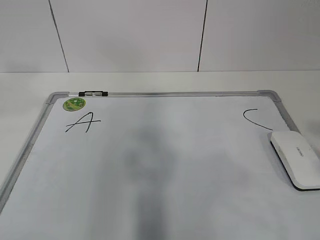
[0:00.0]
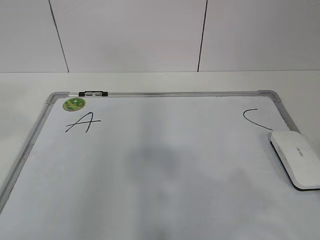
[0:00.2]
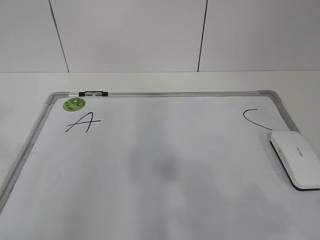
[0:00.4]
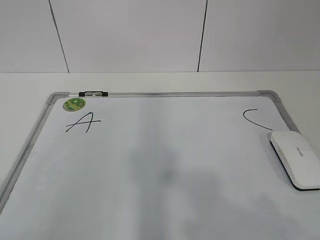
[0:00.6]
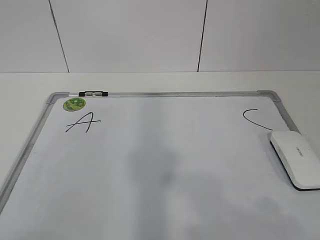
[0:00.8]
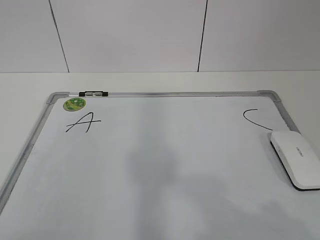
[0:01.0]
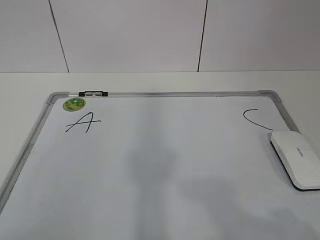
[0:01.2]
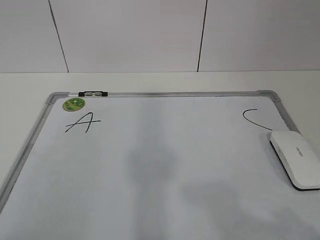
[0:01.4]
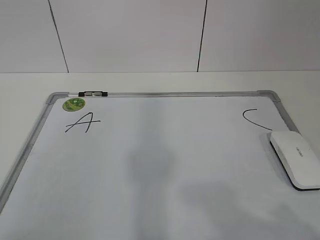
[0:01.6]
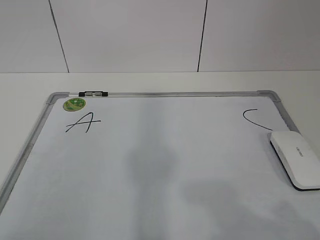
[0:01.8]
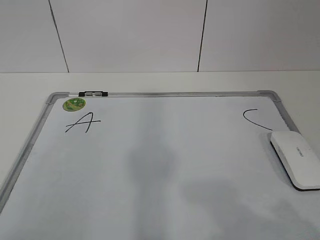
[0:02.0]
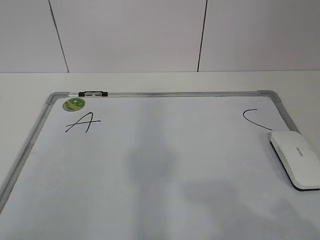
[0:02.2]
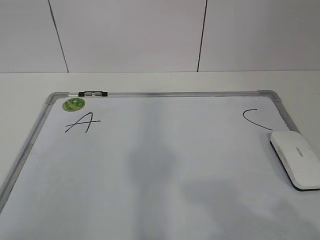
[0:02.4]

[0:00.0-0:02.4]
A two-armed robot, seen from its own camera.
Task of the whole recording: pick up the eraser on the blackboard and erase the letter "B".
0:00.0 to 0:01.2: The right gripper shifts approximately 10 cm downward. Meanwhile the left gripper moves backward and downward, roughly 25 cm.

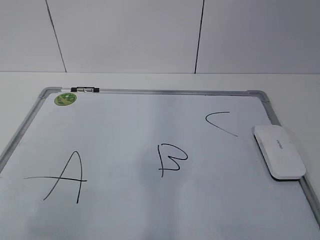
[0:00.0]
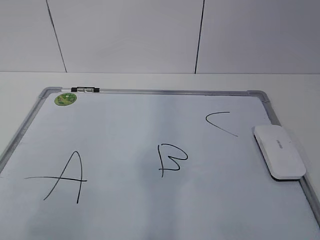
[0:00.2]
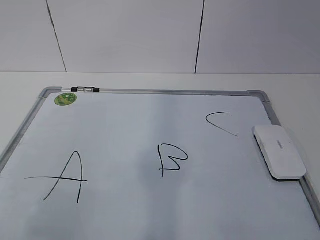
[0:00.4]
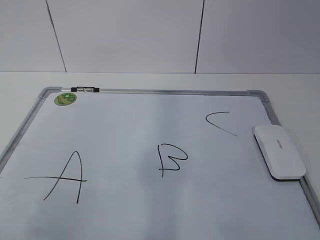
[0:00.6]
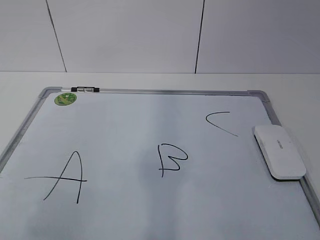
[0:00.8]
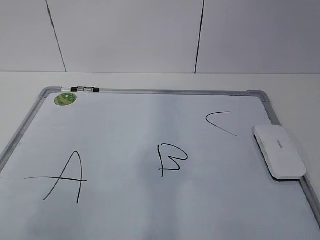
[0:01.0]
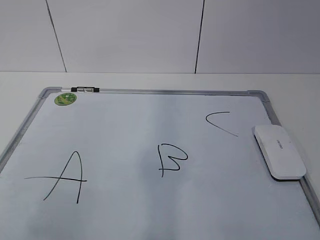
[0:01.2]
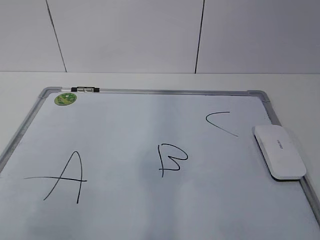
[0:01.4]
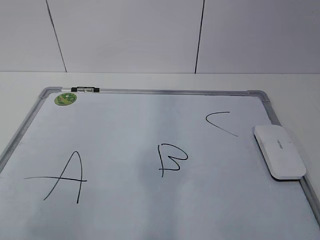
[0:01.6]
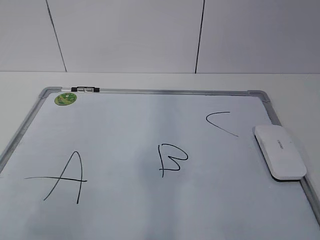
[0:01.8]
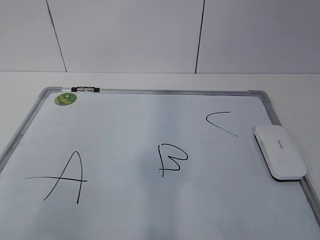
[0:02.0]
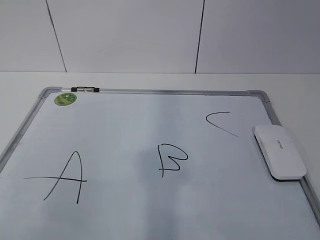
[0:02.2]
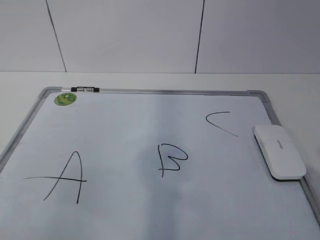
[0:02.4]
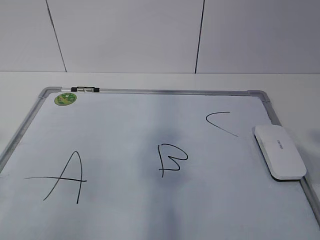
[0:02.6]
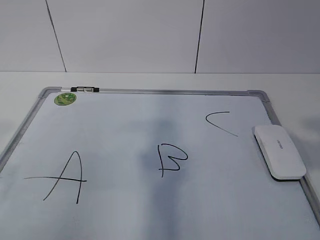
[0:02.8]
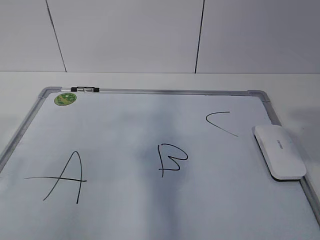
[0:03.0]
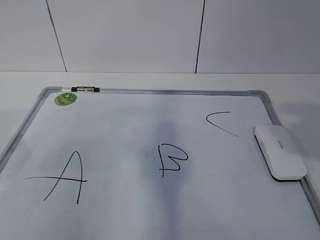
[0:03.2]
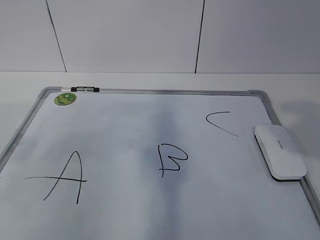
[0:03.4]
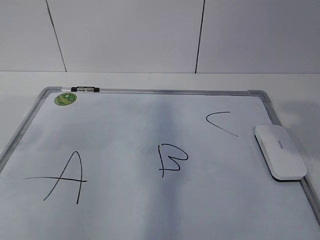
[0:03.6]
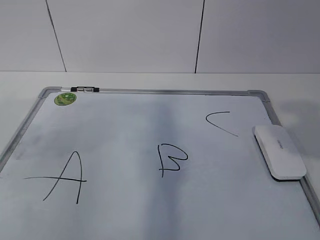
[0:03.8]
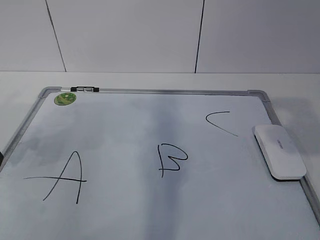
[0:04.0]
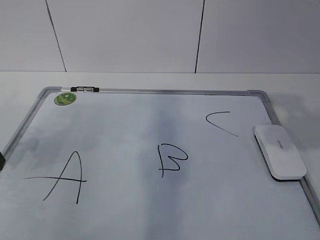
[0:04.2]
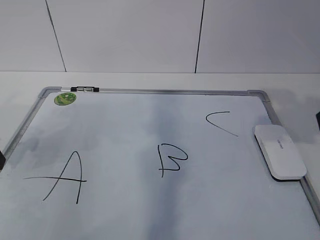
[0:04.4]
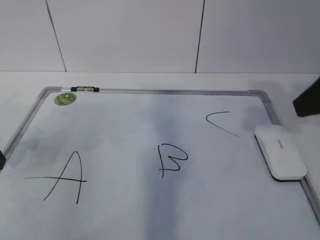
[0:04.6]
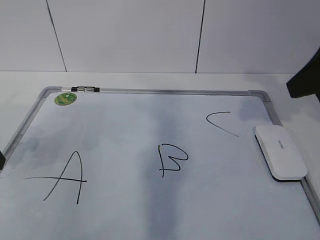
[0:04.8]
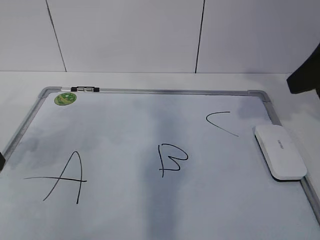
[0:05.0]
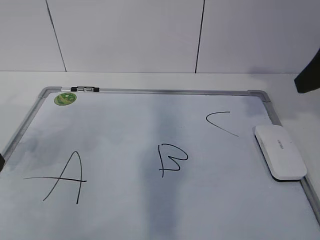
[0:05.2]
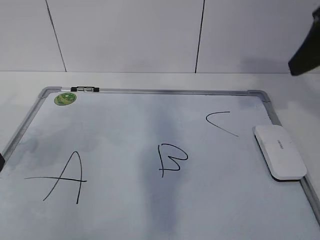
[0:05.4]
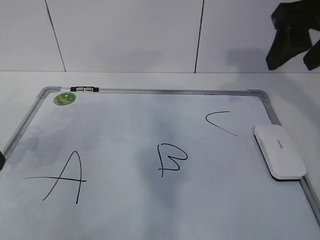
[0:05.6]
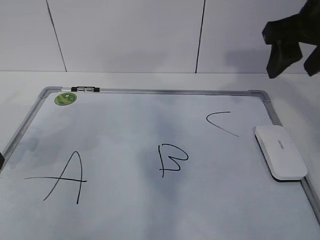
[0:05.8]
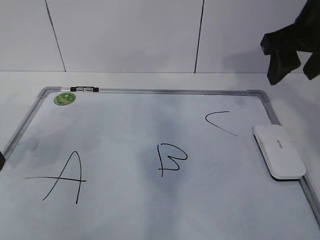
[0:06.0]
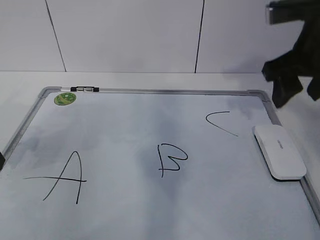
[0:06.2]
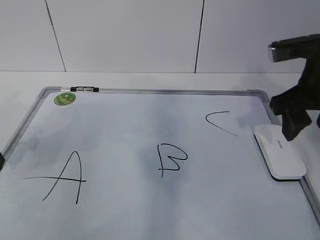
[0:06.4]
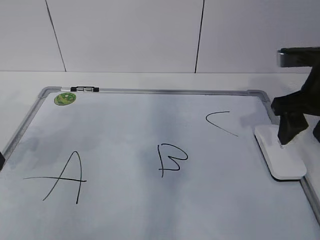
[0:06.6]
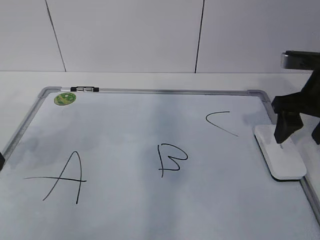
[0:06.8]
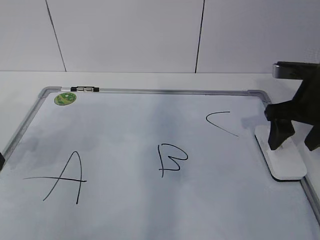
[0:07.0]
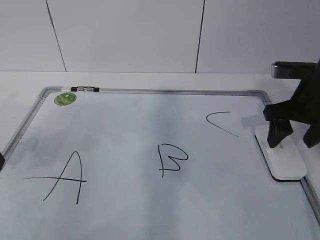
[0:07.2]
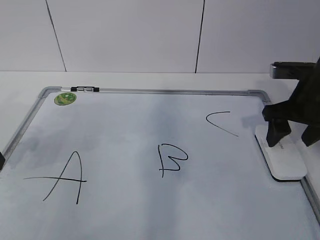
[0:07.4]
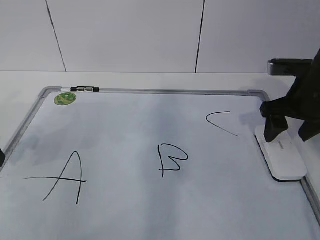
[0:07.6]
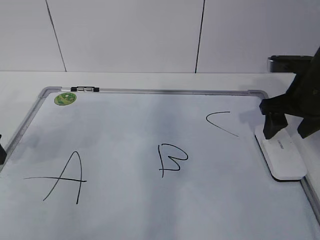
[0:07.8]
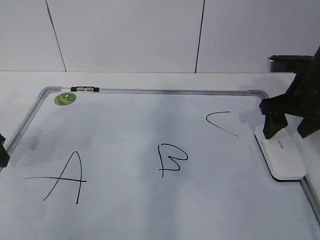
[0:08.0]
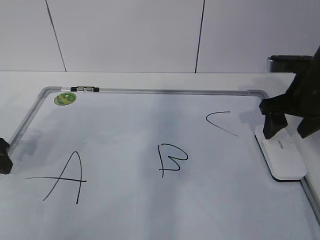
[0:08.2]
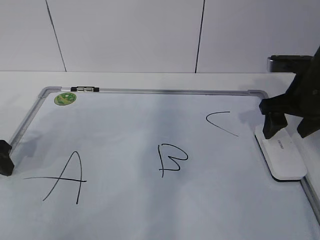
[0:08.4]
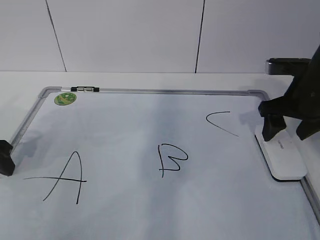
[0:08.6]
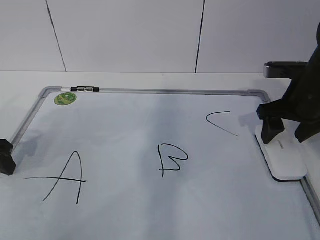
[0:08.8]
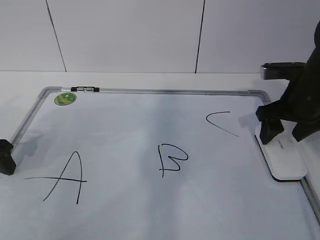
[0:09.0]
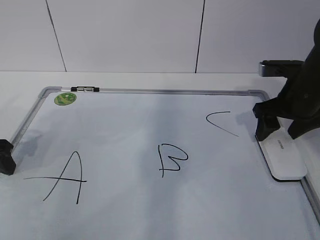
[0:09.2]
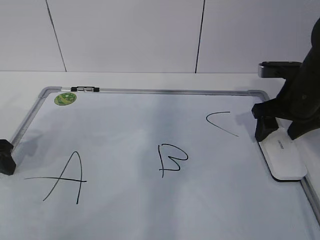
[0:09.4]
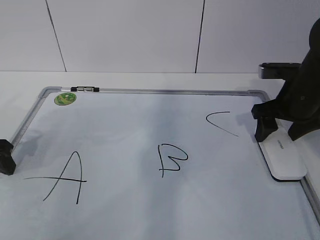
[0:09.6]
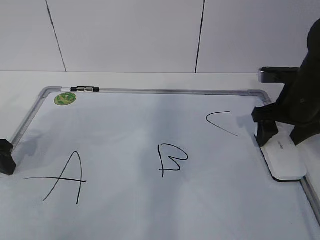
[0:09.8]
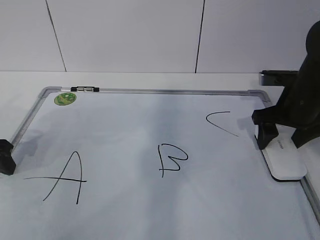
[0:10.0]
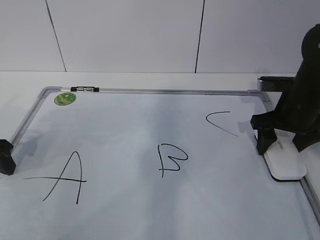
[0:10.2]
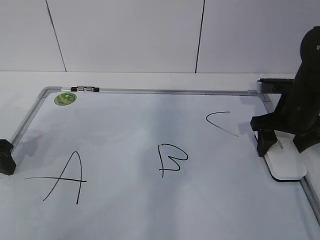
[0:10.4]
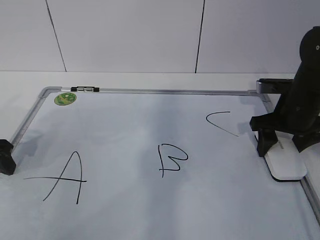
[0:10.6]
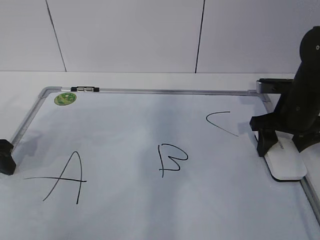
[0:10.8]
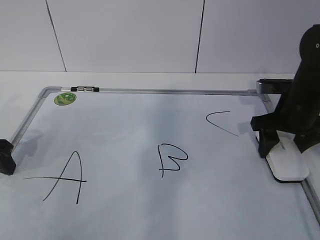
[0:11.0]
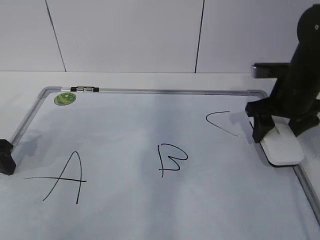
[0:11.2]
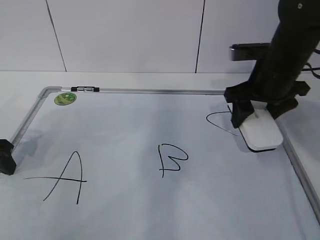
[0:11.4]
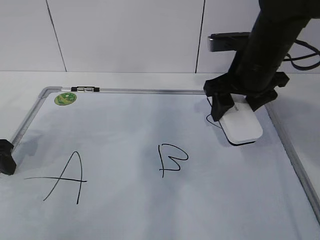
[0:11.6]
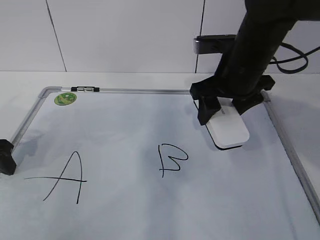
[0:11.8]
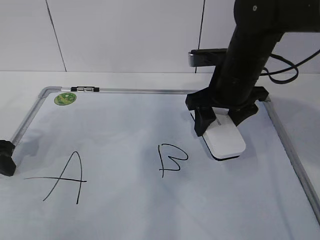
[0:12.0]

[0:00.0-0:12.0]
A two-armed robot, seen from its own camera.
Task of the whole recording: pick up the eraser on the blackboard and erase the letter "B".
Step, 0:00.0 to 0:07.0: Hold the drawing board steady with your left hand.
Step, 0:07.2 to 0:08.6: Grab the eraser with your right hand.
0:01.6 to 0:03.0: The left gripper moves forward, about 10 cm, while the right gripper heads upward and forward, covering roughly 10 cm.
0:03.0 to 0:04.4: The left gripper is displaced forward and downward by about 20 cm.
0:04.4 to 0:06.0: The right gripper goes about 15 cm forward.
0:06.0 to 0:07.6: The right gripper moves downward, approximately 15 cm.
0:07.6 to 0:10.4: The grippers move only a little.
0:10.4 to 0:12.0: The right gripper moves to the left and upward, about 15 cm.

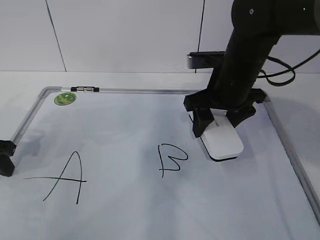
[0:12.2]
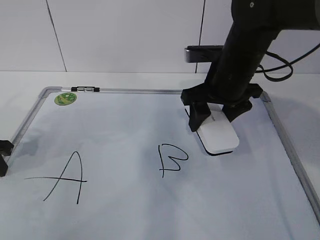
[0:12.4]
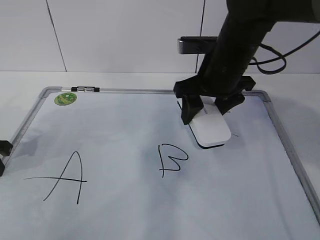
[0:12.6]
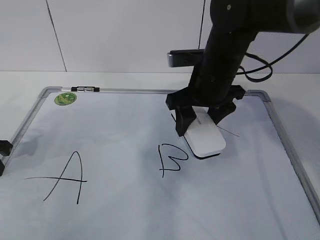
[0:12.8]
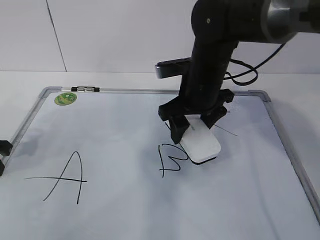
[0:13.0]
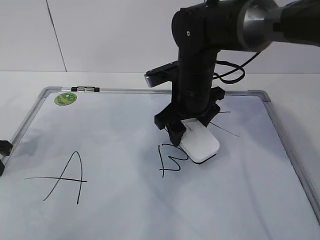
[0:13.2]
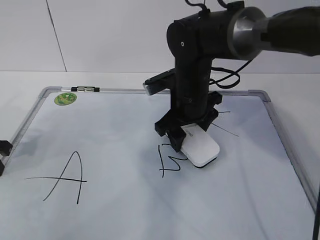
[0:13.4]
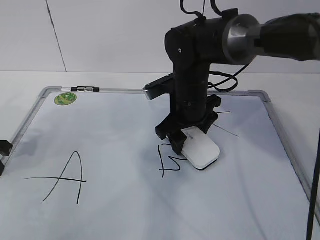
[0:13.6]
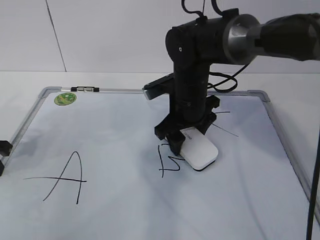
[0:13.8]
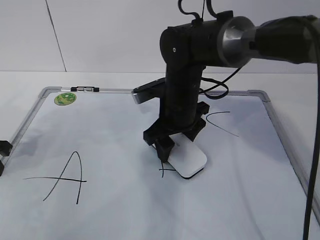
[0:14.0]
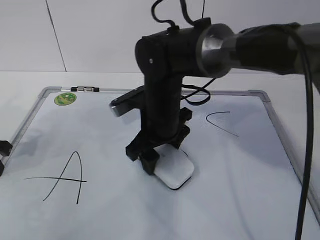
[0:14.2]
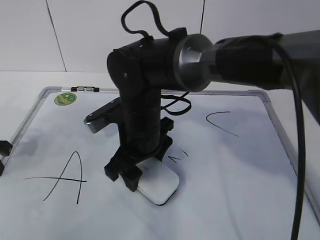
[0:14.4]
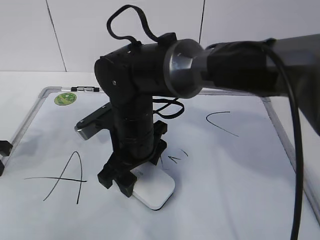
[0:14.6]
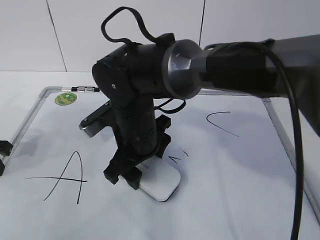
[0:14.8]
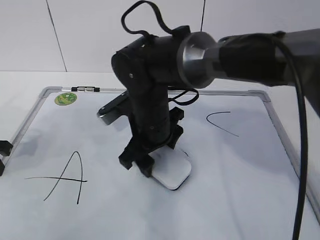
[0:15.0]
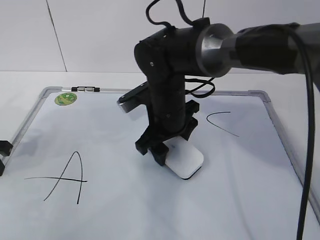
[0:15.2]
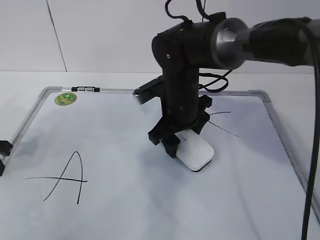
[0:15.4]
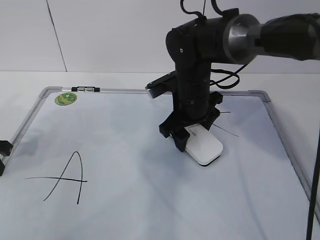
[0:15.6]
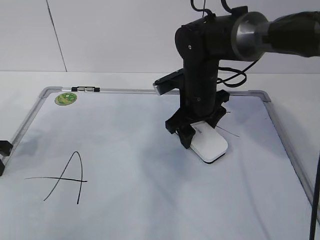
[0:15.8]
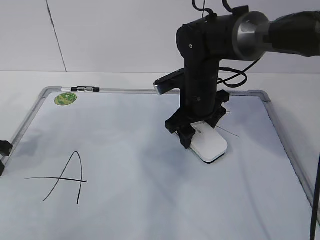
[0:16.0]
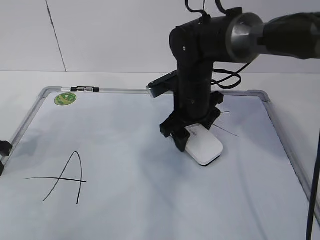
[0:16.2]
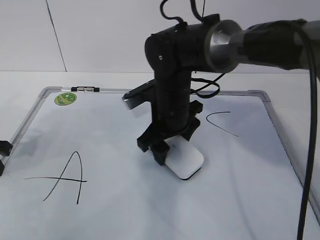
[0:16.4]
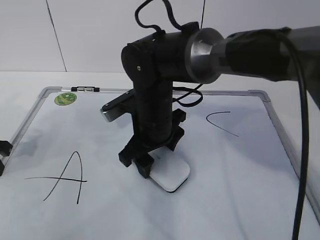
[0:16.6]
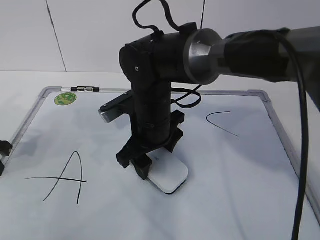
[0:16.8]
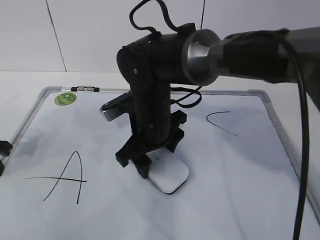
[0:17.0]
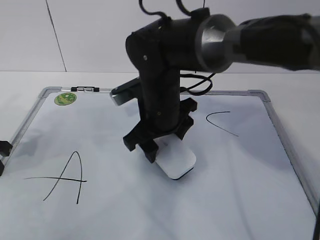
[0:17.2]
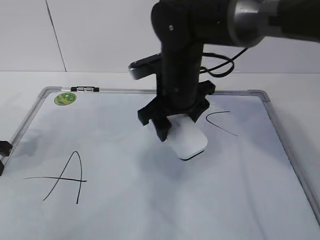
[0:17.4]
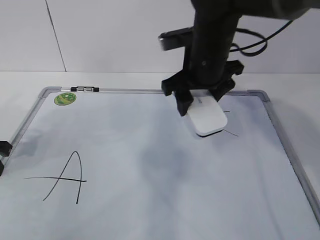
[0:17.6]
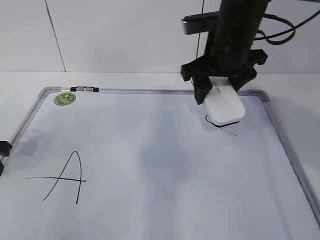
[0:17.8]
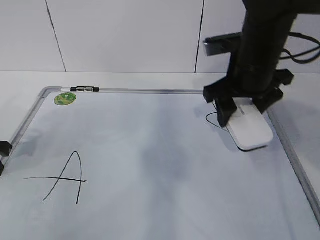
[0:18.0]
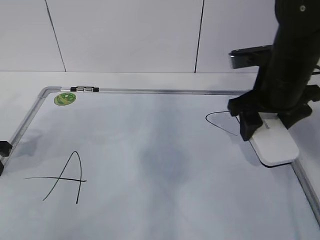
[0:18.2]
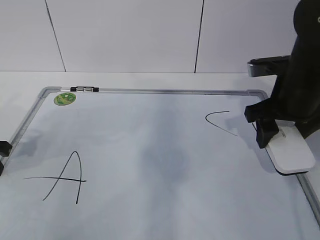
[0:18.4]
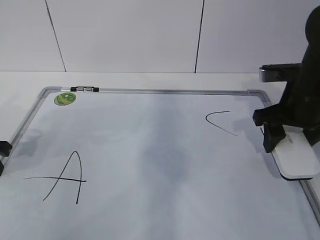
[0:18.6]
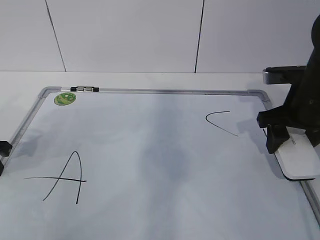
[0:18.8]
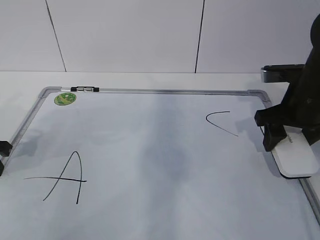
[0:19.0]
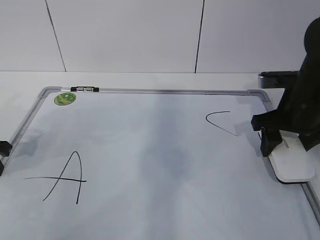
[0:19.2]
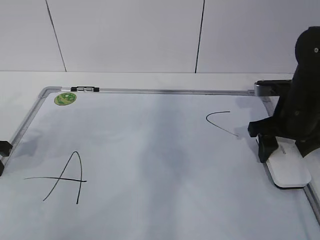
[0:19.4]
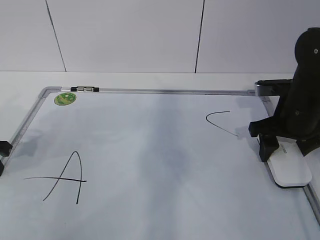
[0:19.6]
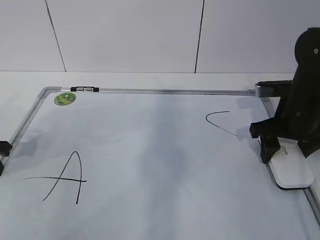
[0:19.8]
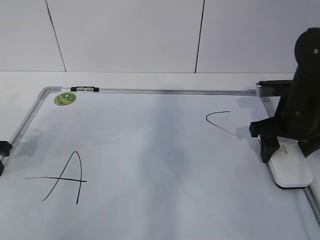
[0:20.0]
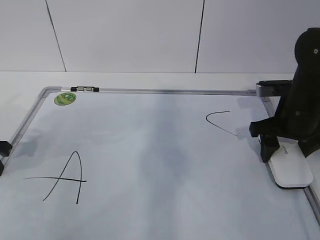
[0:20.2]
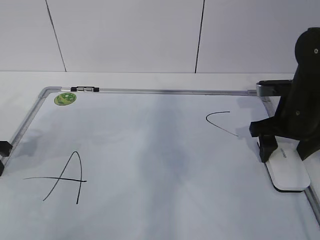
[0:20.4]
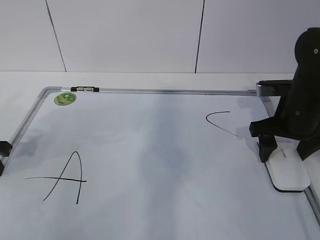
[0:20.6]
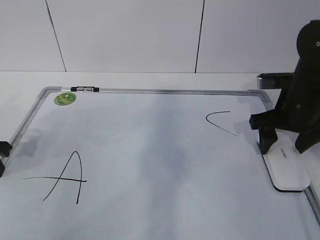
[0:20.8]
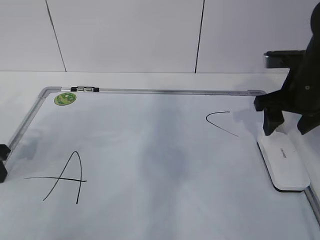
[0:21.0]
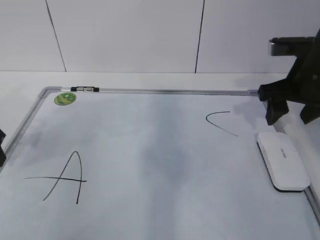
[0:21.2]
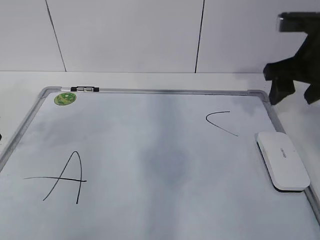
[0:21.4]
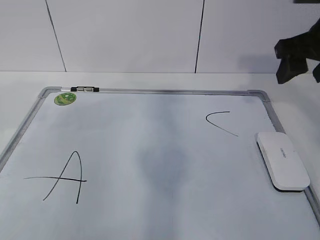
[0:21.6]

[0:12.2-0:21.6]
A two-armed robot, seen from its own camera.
Task of the whole recording: pick up the eraser on the blackboard and erase the letter "B".
Step, 0:14.4 to 0:17.0: Put down the eraser with your right hand.
0:12.2 to 0:13.8: The left gripper closes its fingers. Meanwhile the right gripper goes some 10 cm to the left and downward.
0:13.8 to 0:15.4: The right gripper reaches some 10 cm to the left, then returns.
0:15.4 to 0:17.0: The right gripper shifts by some 5 cm.
0:17.0 to 0:18.4: The right gripper moves to the right, about 20 cm.
0:18.4 to 0:20.0: The right gripper ends up some 5 cm from where it was.
0:20.0 to 0:21.6: The two grippers go about 10 cm upward. The left gripper opens up.
